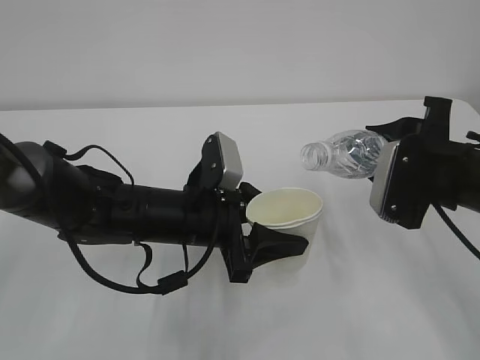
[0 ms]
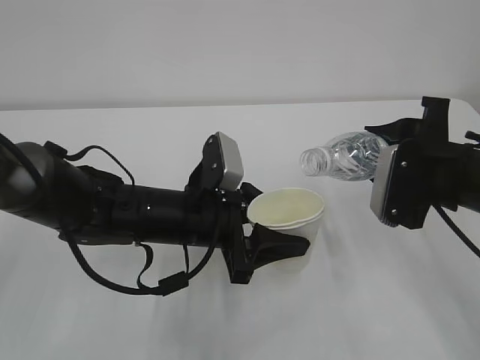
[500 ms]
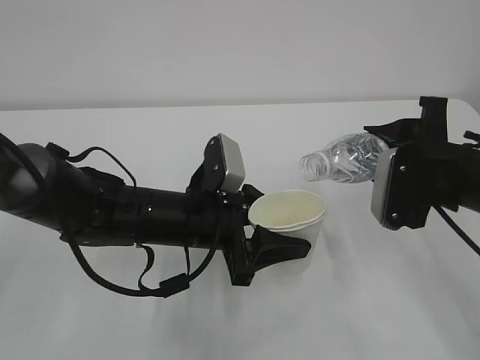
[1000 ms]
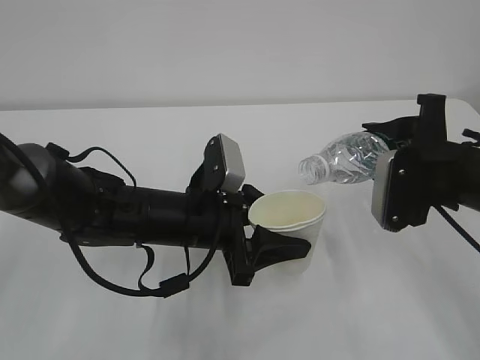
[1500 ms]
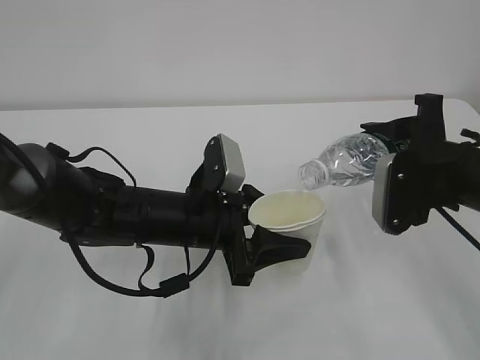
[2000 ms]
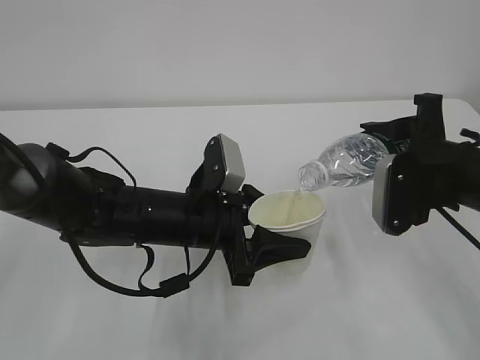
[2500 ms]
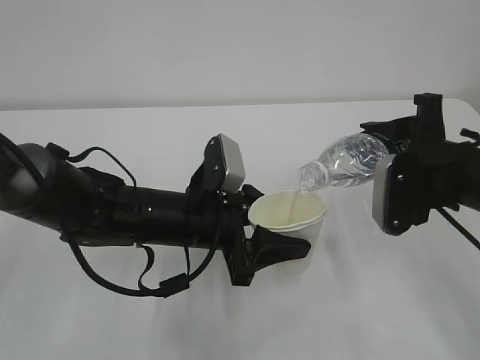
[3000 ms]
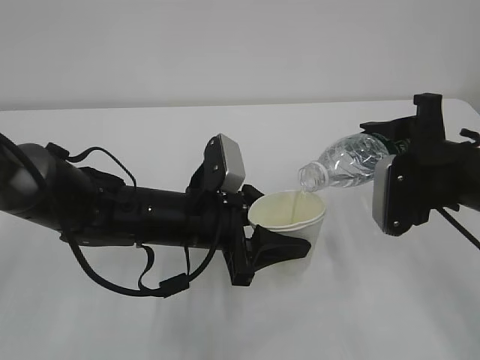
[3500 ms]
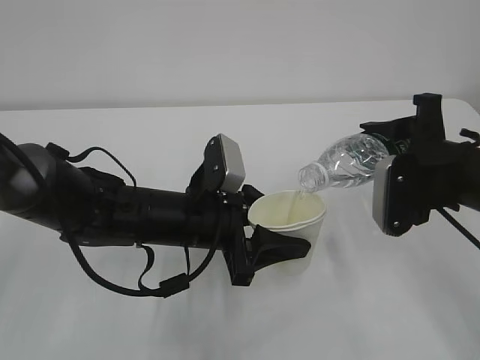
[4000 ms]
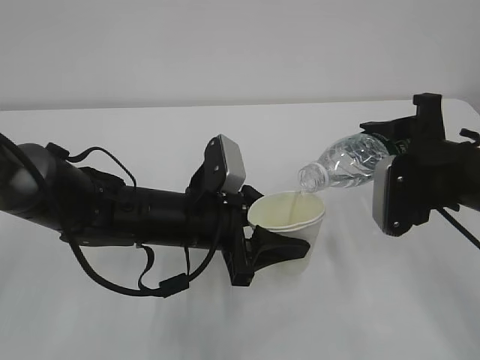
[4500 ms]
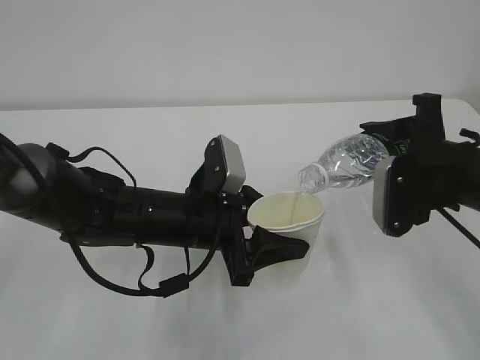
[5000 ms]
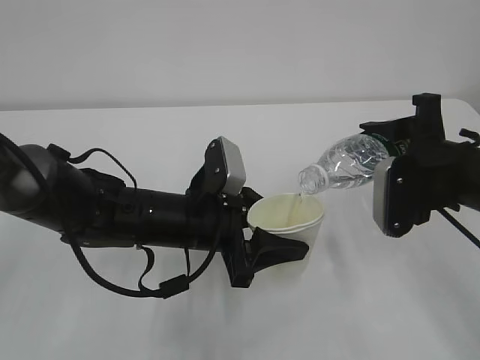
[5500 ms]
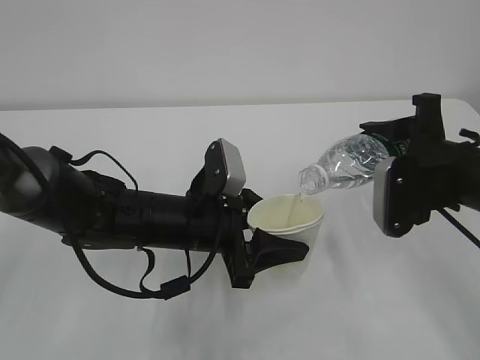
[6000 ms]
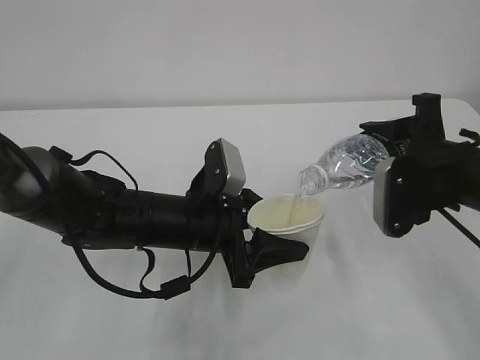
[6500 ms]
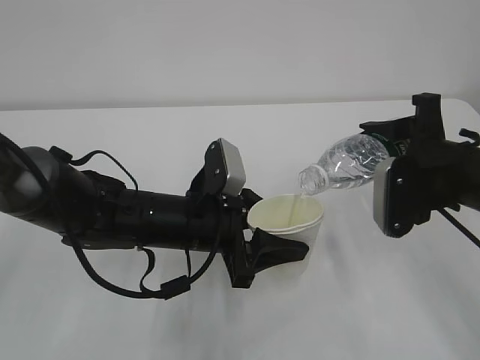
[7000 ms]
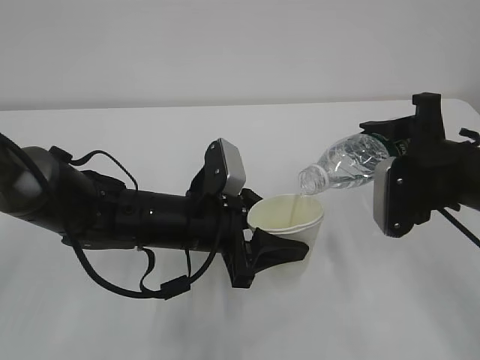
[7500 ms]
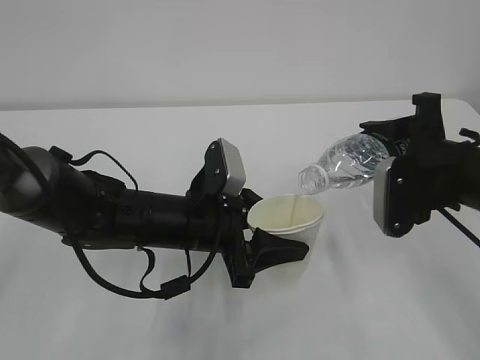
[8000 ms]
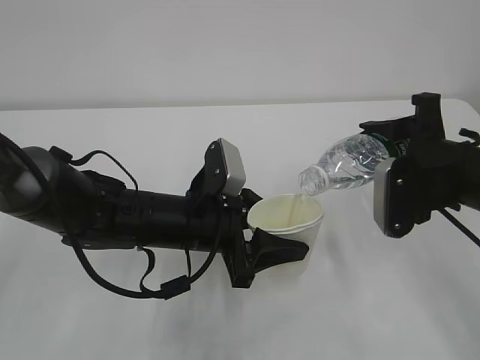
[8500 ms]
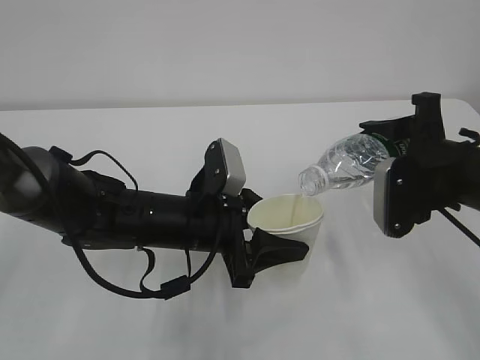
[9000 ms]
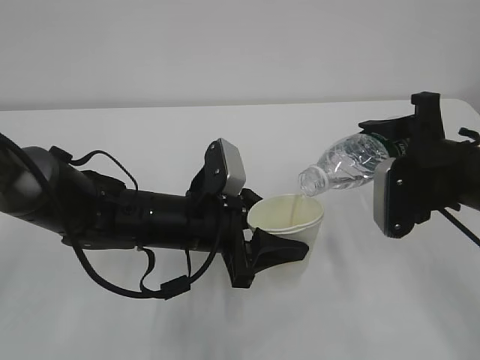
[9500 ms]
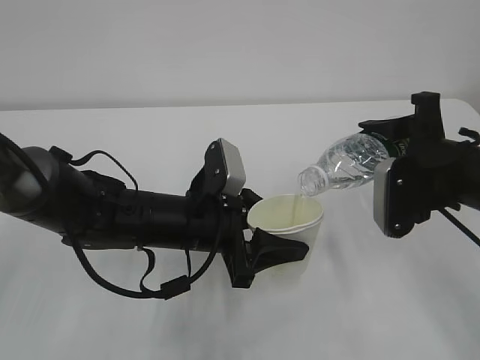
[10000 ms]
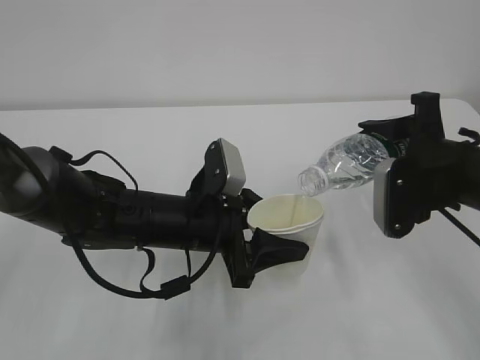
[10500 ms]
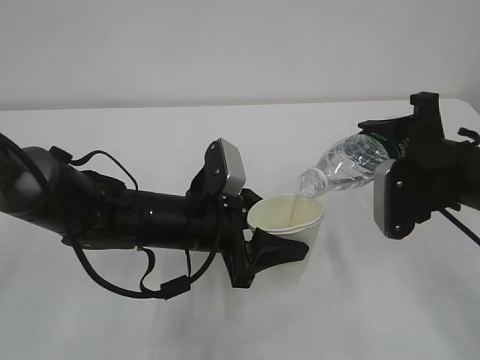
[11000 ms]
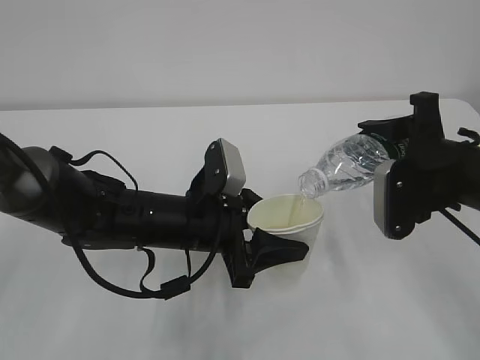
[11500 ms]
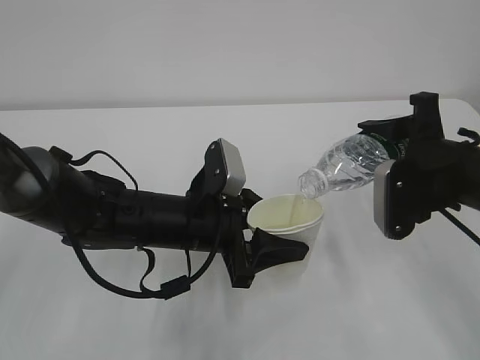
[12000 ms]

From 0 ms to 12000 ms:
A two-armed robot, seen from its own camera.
From 0 ms to 2000 ms: The grippers make only small movements.
From 2000 ms to 10000 ms: Both grippers stay about where they are.
From 10000 ms to 12000 ms: The two grippers keep their place.

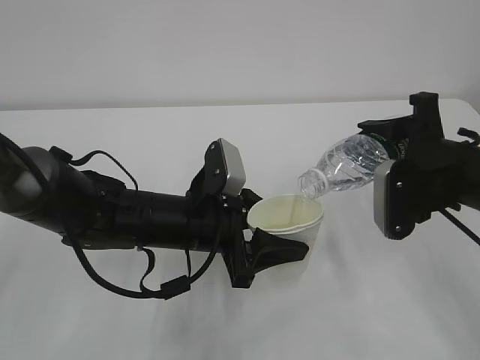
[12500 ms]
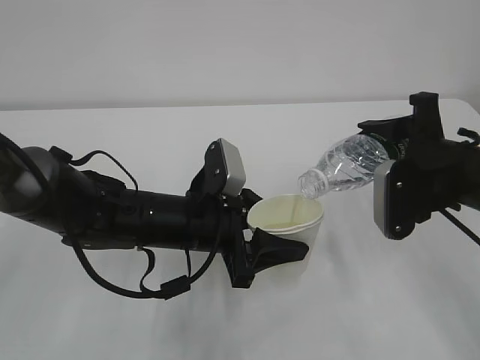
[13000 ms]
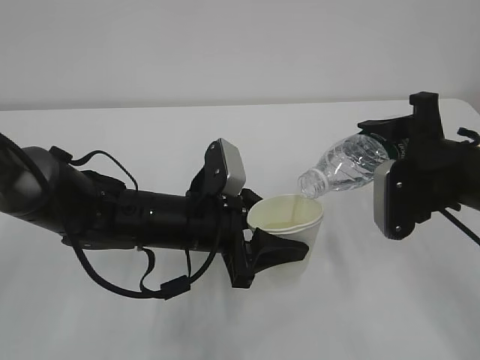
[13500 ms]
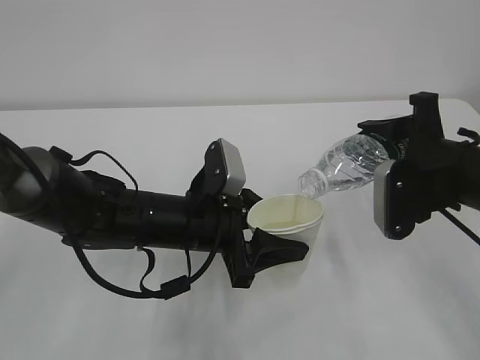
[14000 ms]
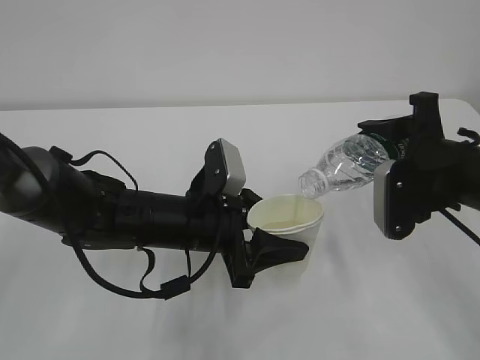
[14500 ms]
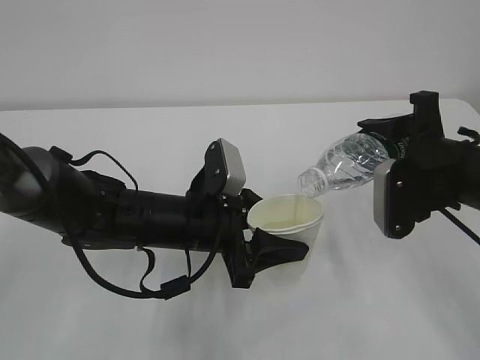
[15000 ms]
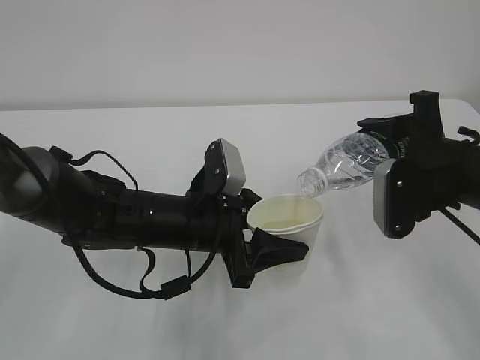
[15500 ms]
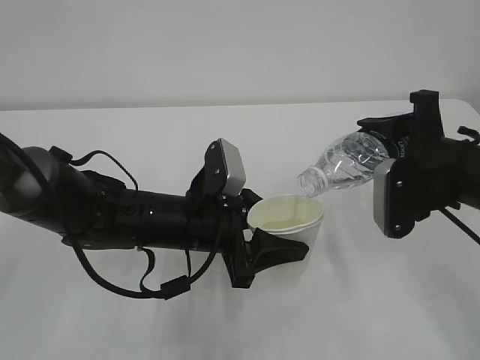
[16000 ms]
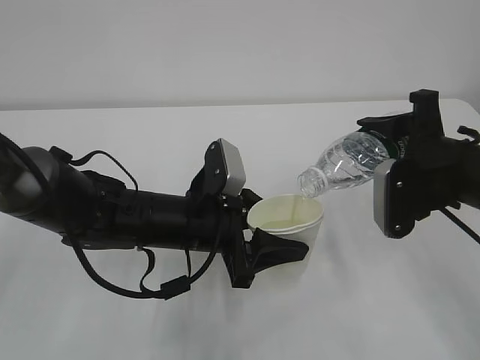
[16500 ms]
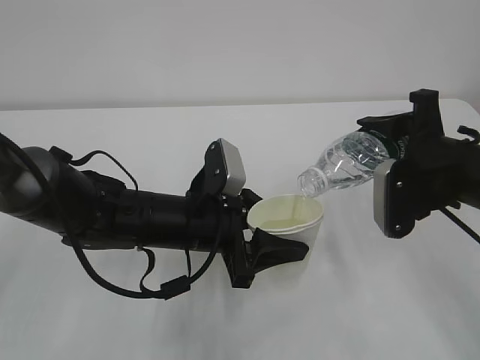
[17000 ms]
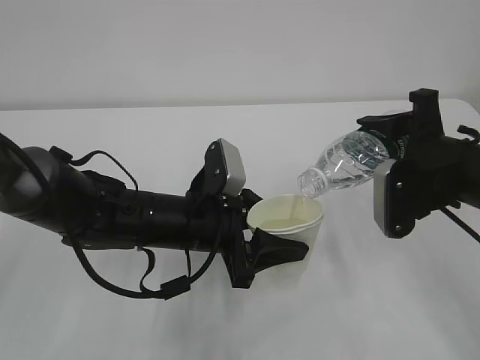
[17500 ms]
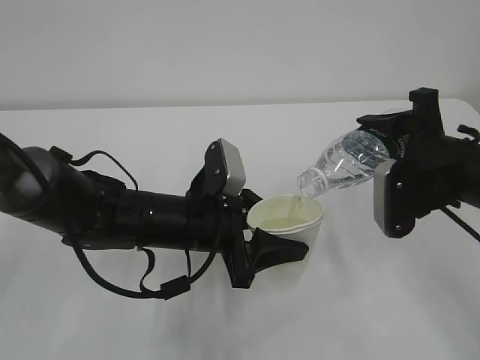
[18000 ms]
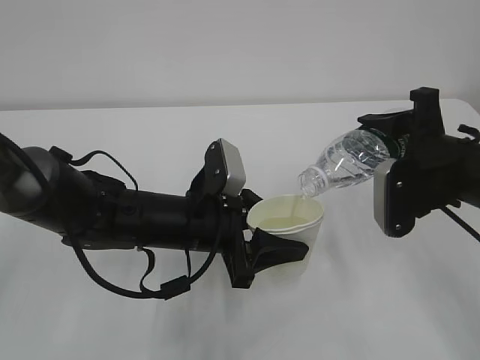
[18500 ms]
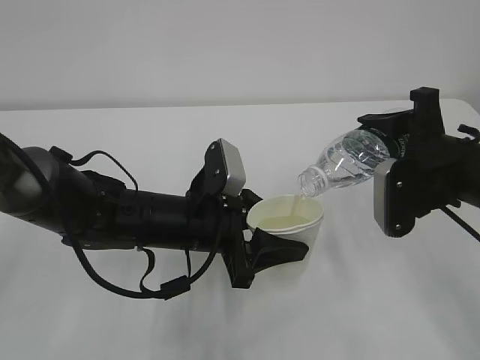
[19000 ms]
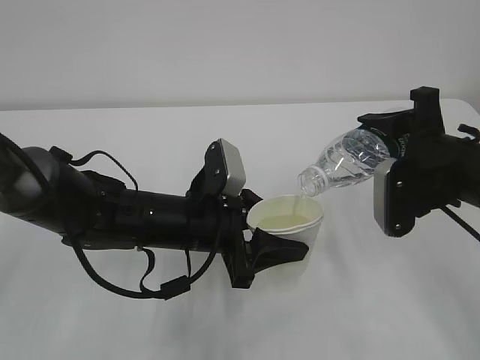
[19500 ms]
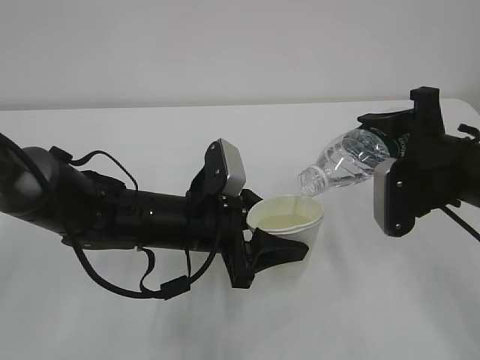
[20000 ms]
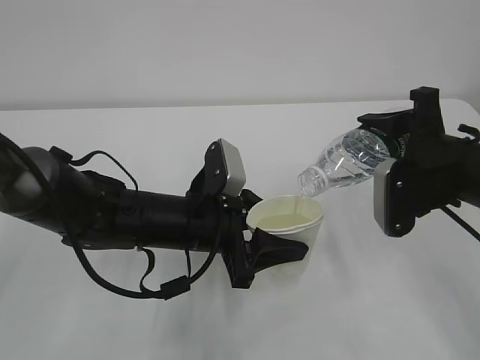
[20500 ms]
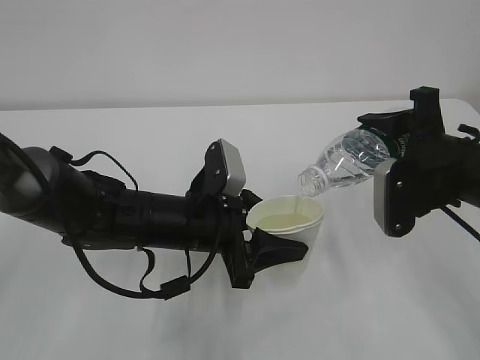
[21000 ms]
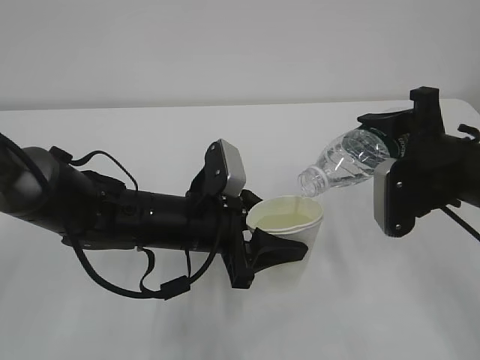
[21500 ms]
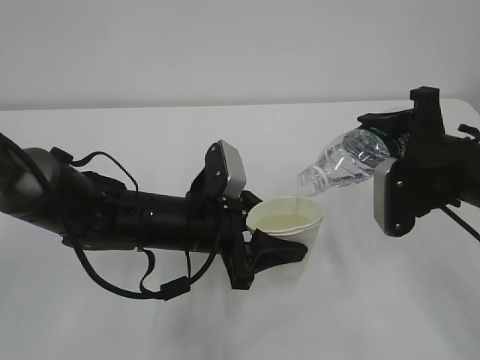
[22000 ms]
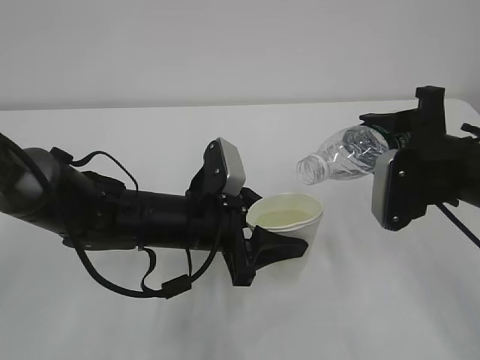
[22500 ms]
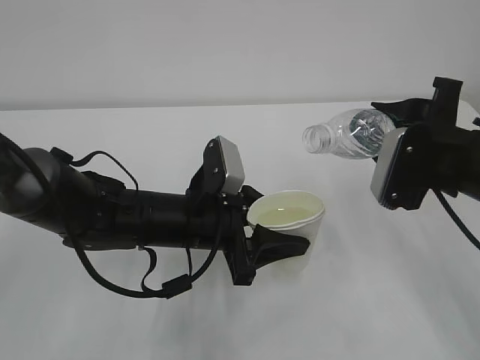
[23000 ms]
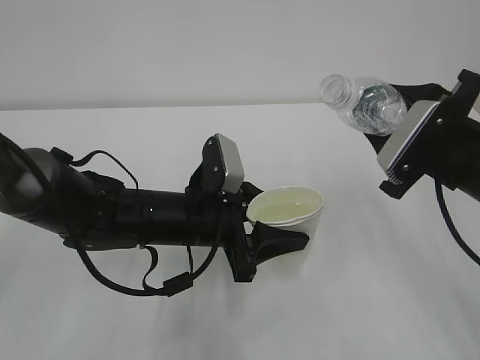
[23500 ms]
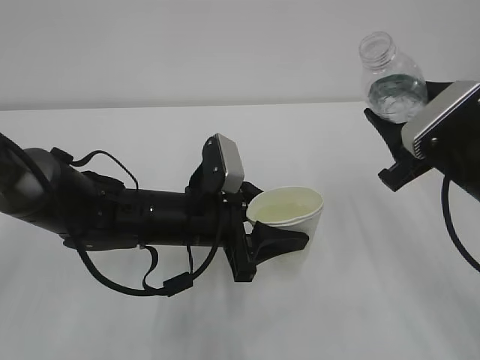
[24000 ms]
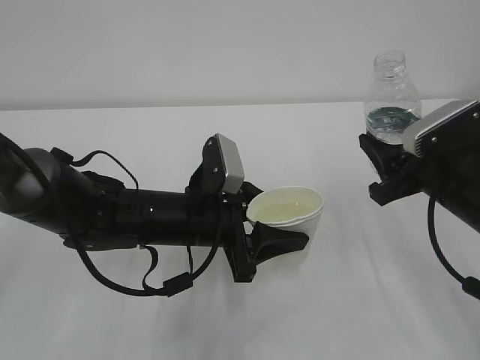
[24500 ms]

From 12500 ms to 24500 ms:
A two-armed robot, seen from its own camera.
From 12500 ms to 20500 ms: The two grippers keep their place.
From 20500 ms to 22500 ms: The grippers make only small movements.

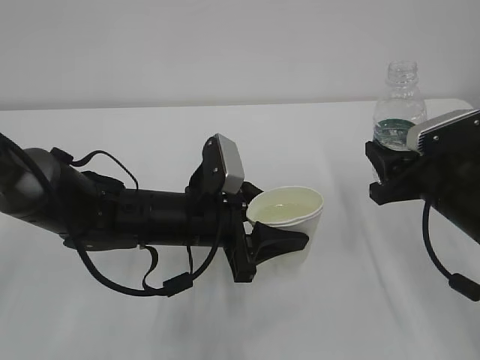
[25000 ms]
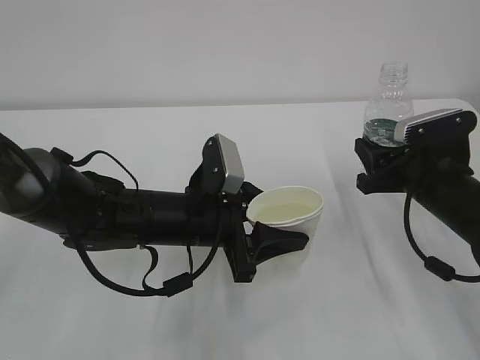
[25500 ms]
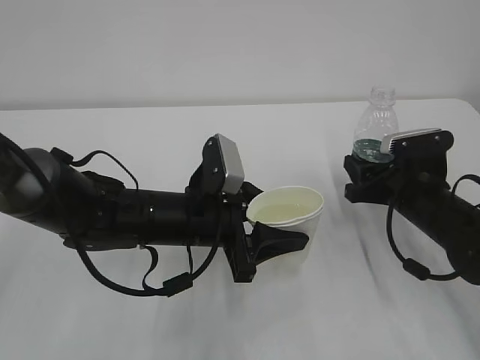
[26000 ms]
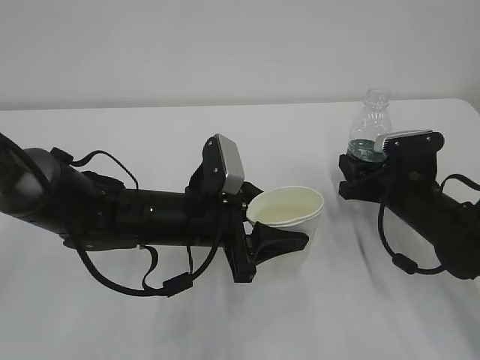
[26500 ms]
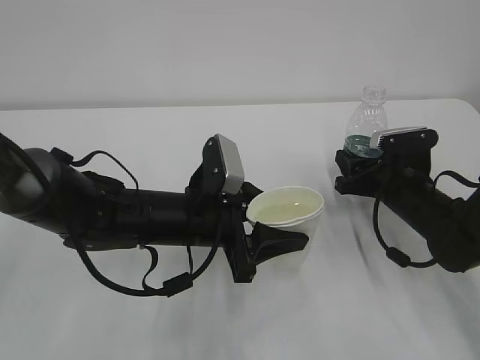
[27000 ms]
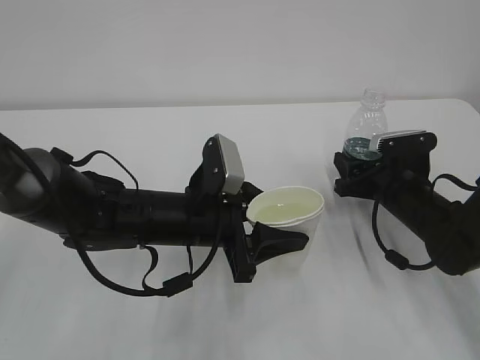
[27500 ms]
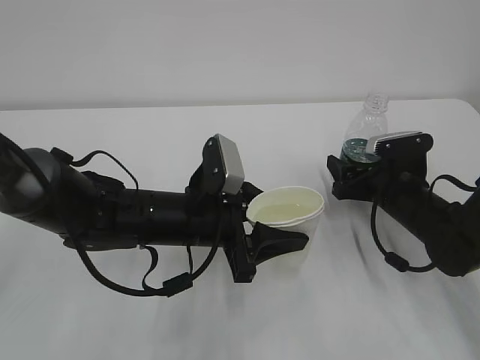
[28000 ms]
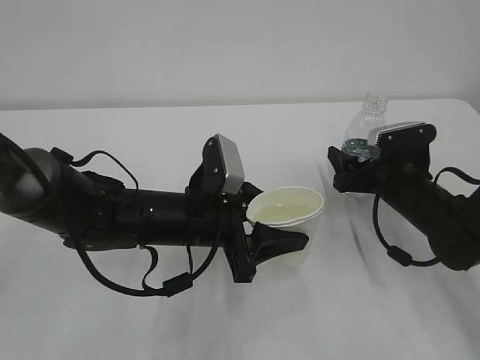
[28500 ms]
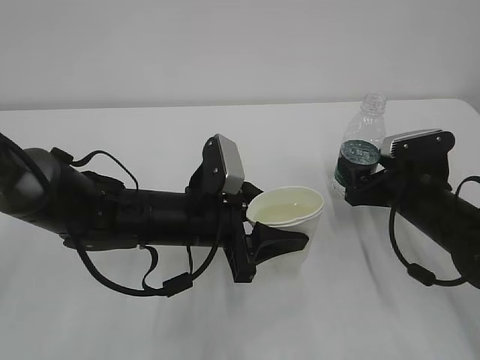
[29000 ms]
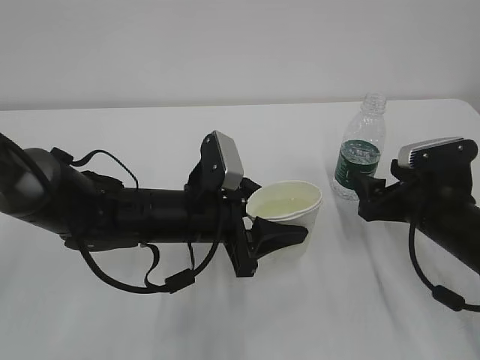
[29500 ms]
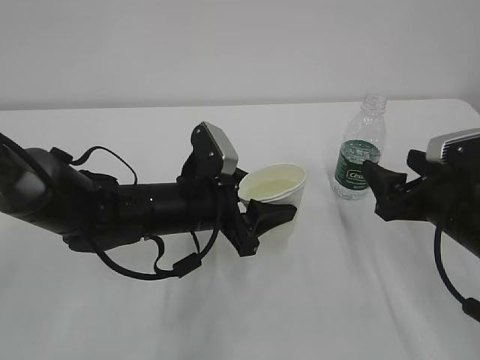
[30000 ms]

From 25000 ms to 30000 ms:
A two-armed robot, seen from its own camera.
From 25000 ms to 27500 ms: The right gripper goes approximately 10 cm downward and forward.
From 27500 ms to 30000 ms: The right gripper is displaced backward and upward by approximately 10 cm, and opens its fingers.
